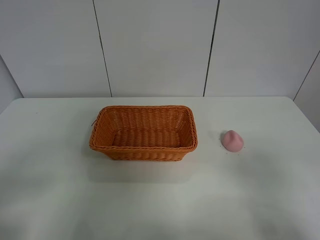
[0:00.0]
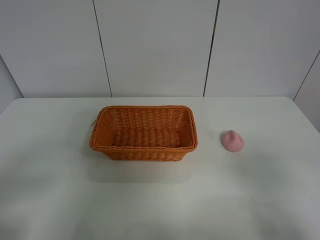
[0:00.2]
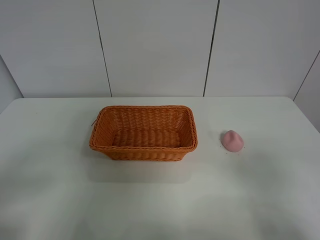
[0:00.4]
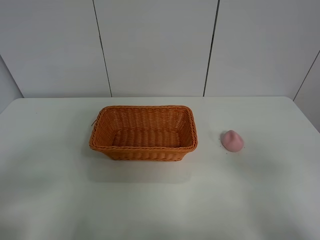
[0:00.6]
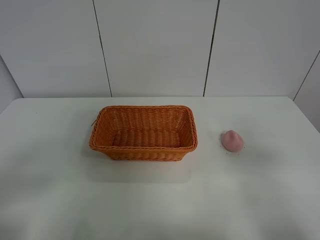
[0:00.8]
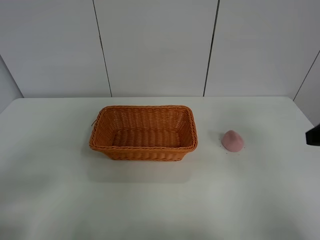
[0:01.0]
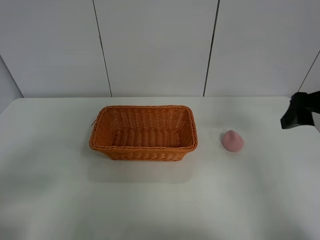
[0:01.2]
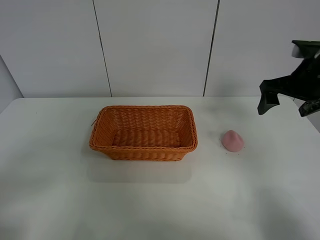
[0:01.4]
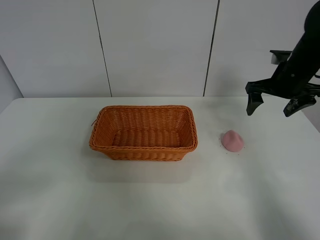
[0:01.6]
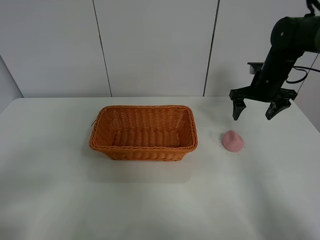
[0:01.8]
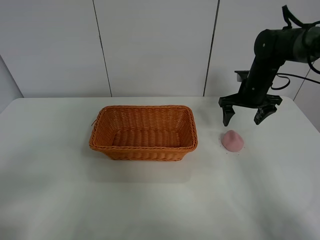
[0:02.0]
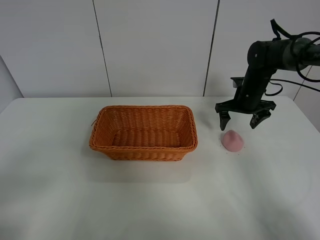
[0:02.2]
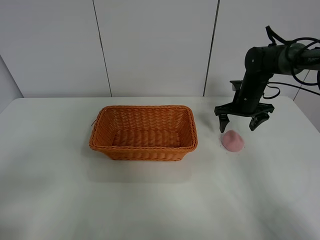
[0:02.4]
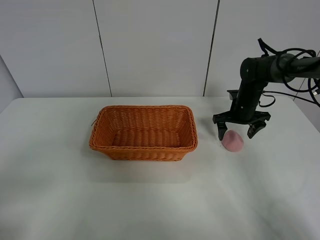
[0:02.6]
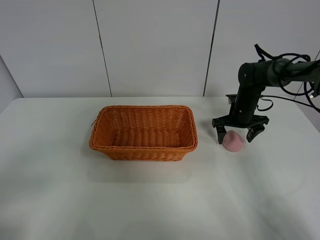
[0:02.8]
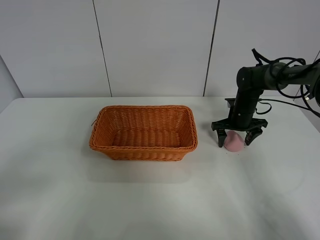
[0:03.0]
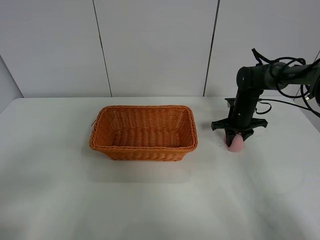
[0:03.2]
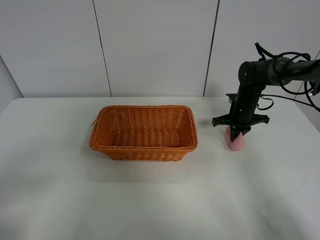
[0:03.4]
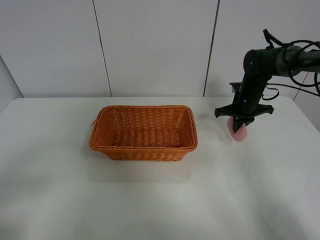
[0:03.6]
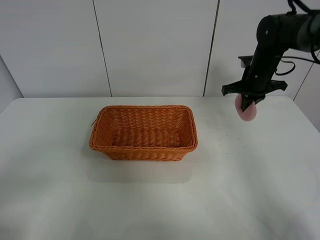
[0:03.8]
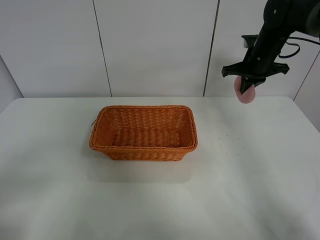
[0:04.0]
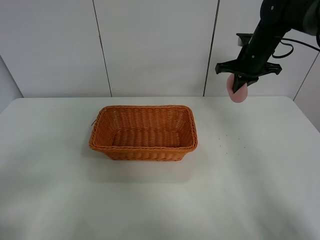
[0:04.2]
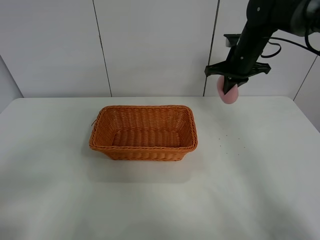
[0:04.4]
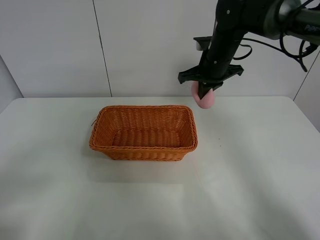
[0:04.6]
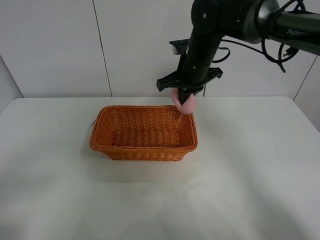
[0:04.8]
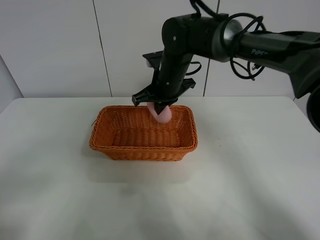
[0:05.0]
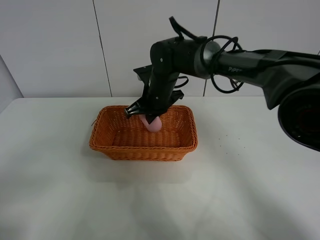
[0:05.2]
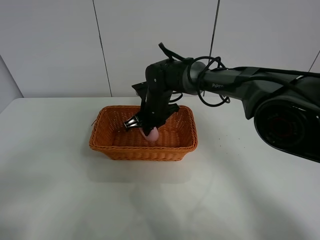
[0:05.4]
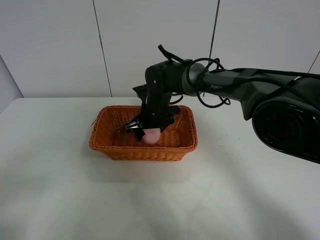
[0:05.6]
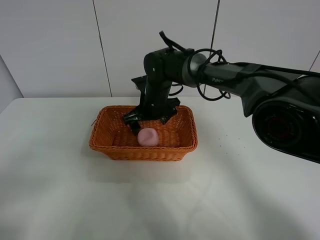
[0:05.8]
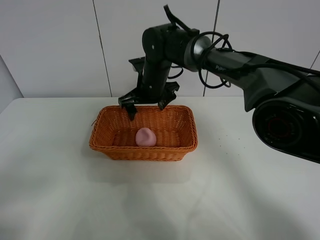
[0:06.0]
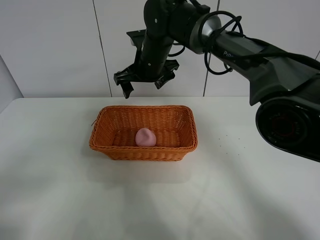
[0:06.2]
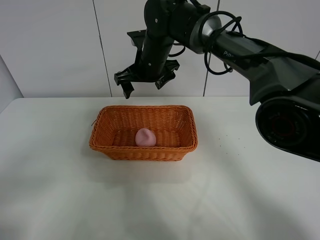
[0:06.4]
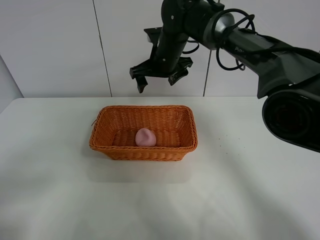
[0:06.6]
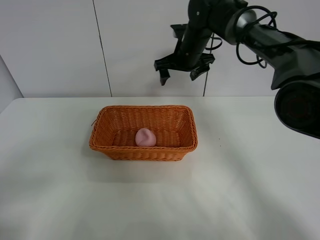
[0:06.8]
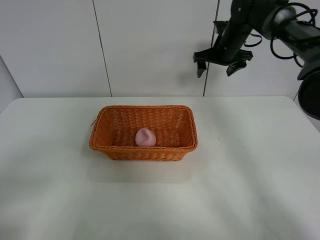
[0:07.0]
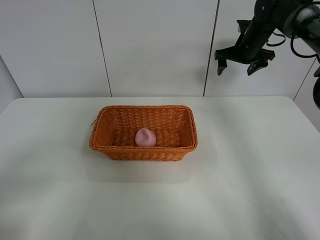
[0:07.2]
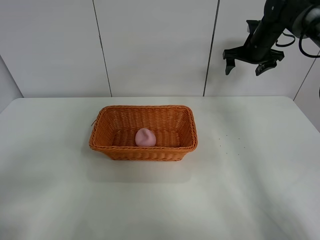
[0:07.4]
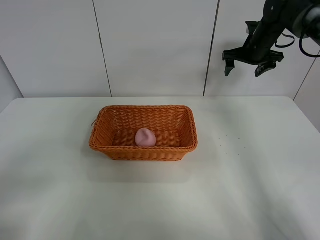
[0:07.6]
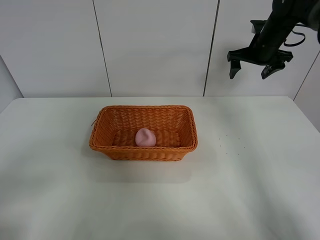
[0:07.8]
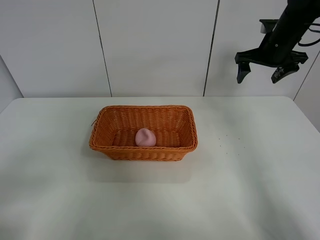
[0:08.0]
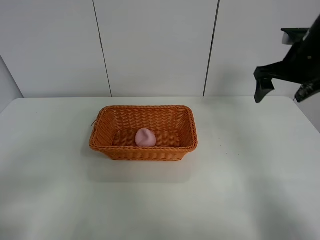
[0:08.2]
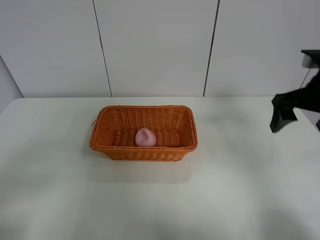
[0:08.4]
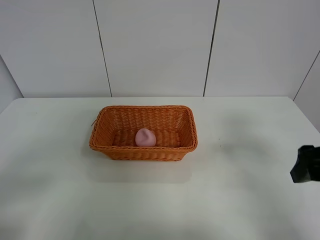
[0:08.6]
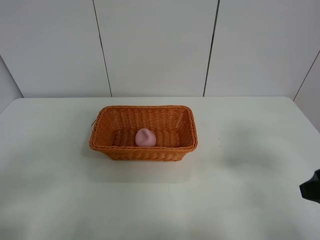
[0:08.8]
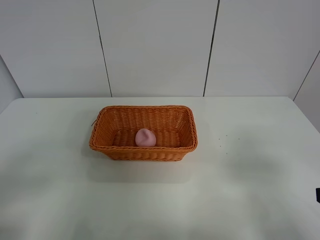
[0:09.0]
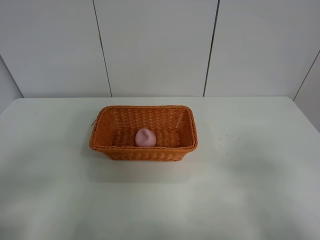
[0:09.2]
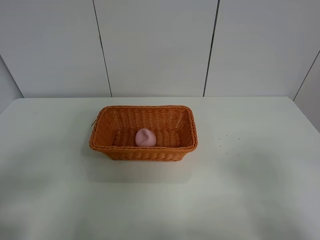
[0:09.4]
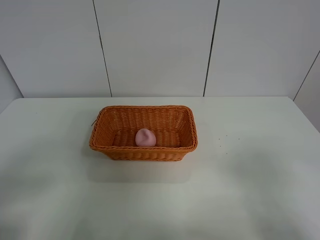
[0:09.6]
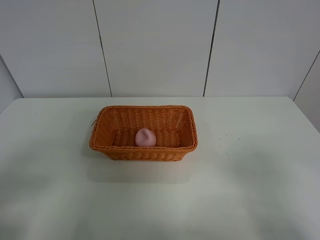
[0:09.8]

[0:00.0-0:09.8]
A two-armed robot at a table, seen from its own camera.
Step, 0:00.0 to 0:03.4: Grasp the peach with right gripper.
Step, 0:03.6 to 0:06.0: Place the peach in the basket with right gripper.
0:00.0 to 0:01.4: The right gripper goes about 35 cm forward.
0:01.4 to 0:02.8: The right gripper moves downward and forward, approximately 20 cm.
0:02.8 to 0:04.2: The right gripper heads upward, covering about 15 cm, and closes its fingers.
0:04.2 to 0:05.6: The right gripper moves to the left and downward, approximately 25 cm, and opens up.
0:05.6 to 0:07.0: The right gripper heads to the right, upward and forward, covering about 25 cm.
0:07.0 to 0:08.4: The right gripper travels backward by about 25 cm.
0:08.4 to 0:09.8: The right gripper travels backward by roughly 25 cm.
